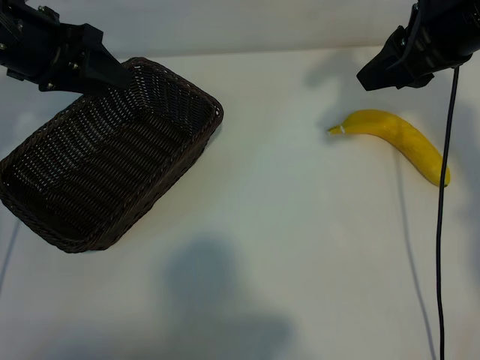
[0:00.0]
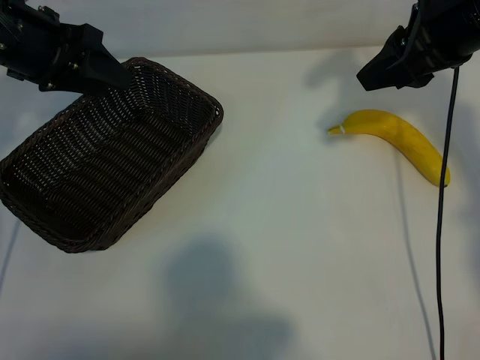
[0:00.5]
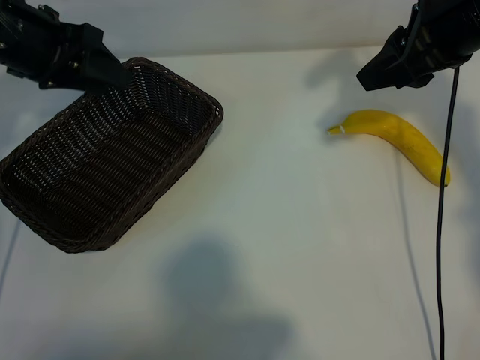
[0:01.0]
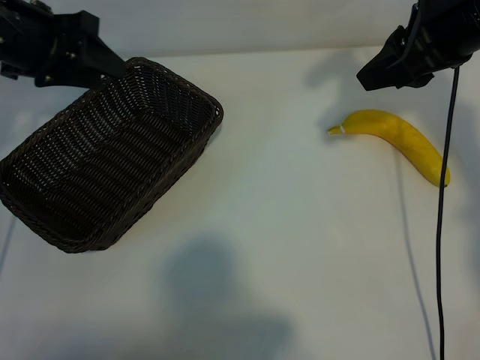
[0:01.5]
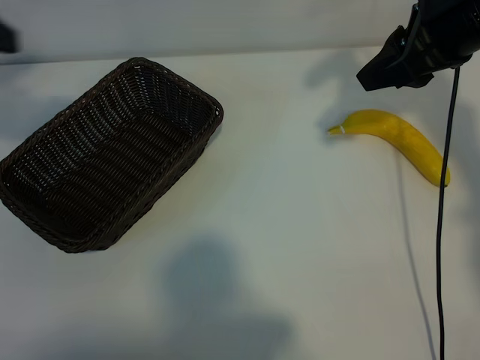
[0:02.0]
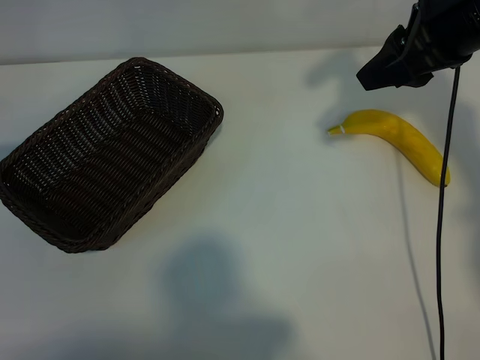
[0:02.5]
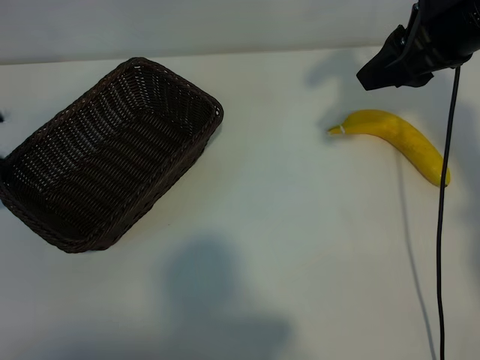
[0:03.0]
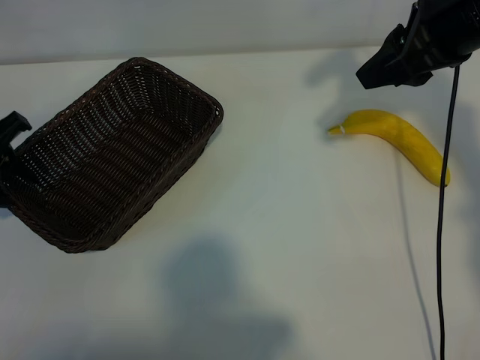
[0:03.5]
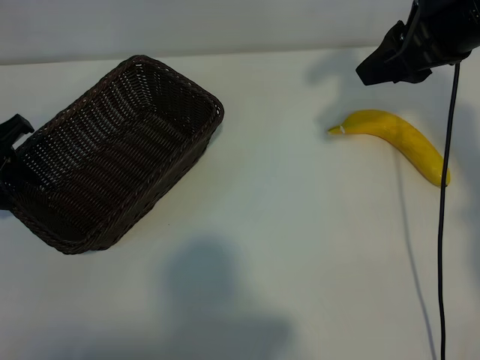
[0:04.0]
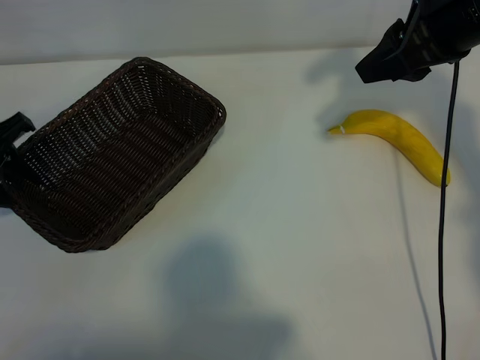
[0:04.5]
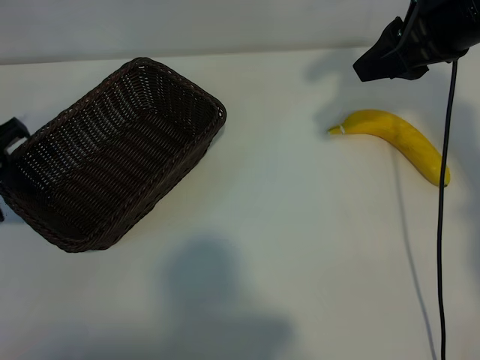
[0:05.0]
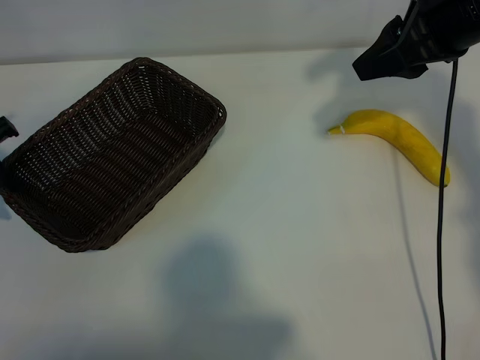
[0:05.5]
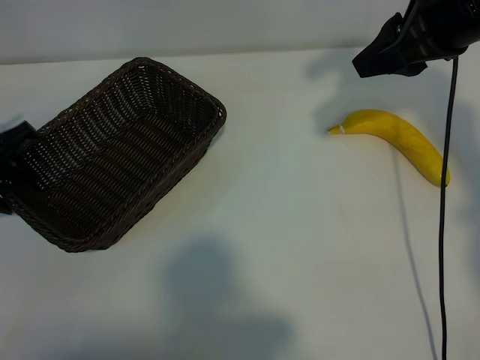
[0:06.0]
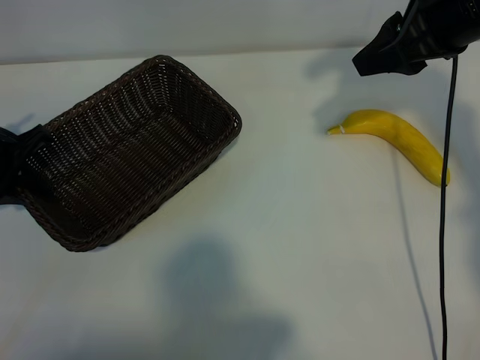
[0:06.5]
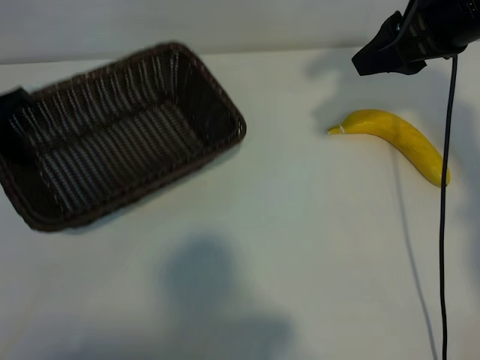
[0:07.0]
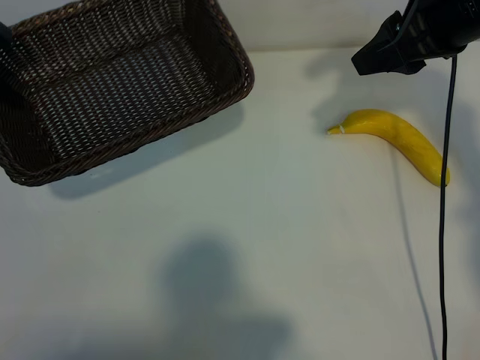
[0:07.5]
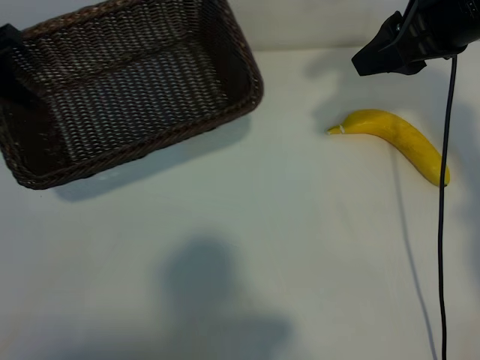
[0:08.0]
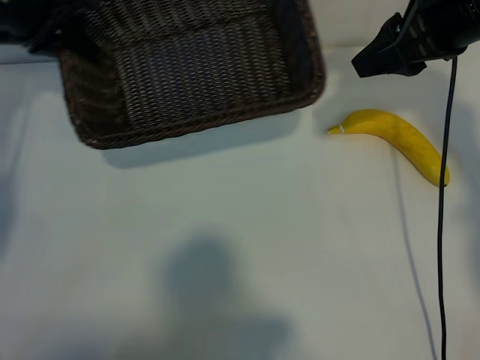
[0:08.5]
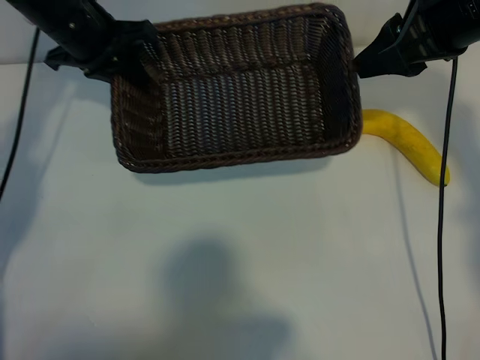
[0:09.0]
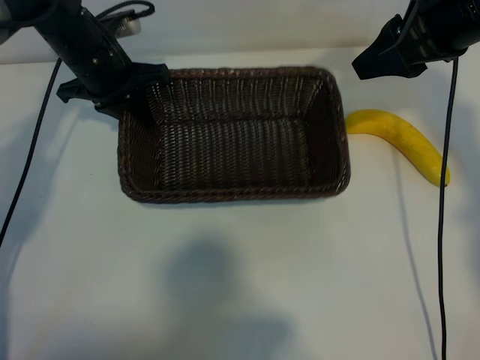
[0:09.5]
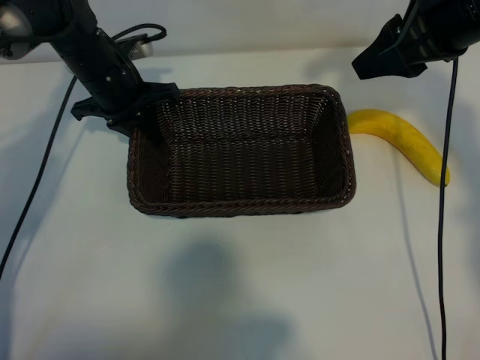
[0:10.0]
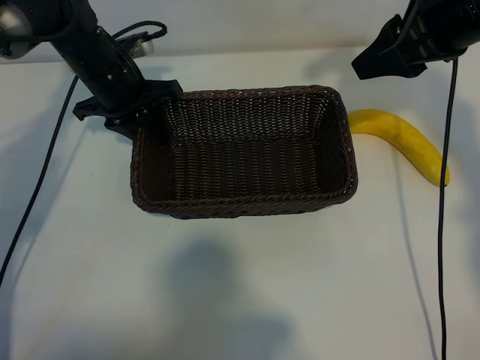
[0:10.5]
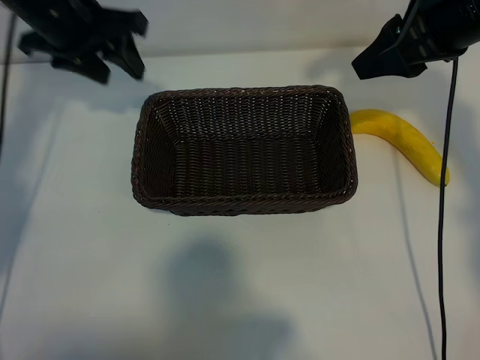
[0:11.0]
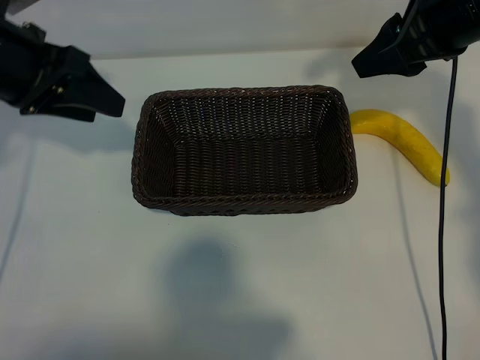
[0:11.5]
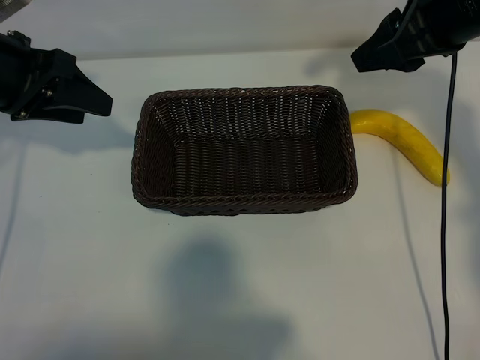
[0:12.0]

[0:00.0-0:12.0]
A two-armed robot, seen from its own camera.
Task of the whole recording: pick up the banana and put it into the basket.
Step, 0:01.0 to 0:06.0: Grasp the basket with the left gripper.
Step, 0:06.5 to 0:10.5: Place the basket in the center of the table with the left gripper.

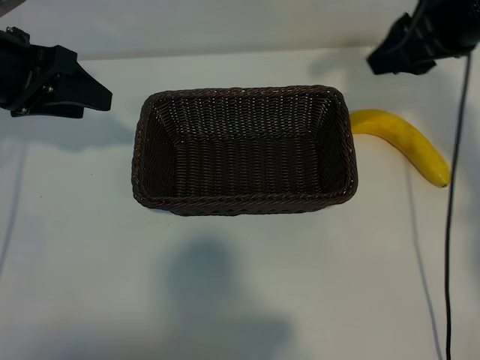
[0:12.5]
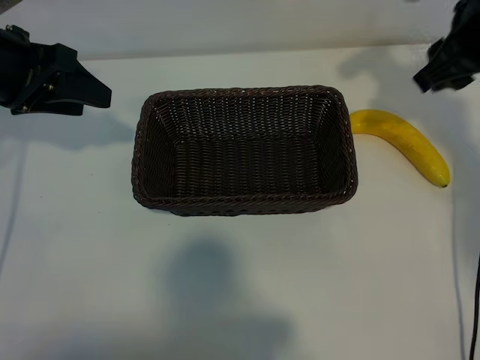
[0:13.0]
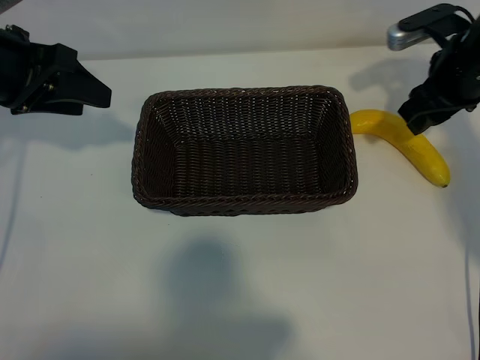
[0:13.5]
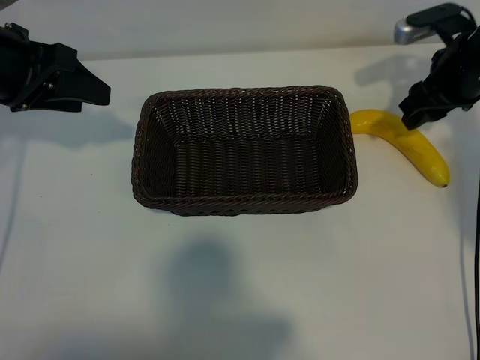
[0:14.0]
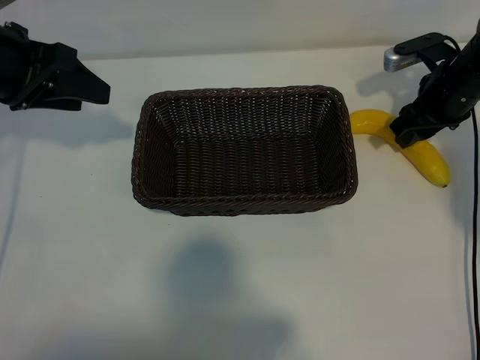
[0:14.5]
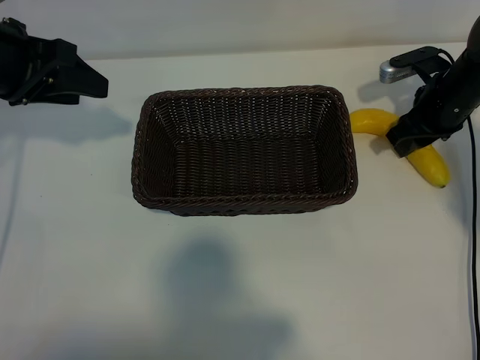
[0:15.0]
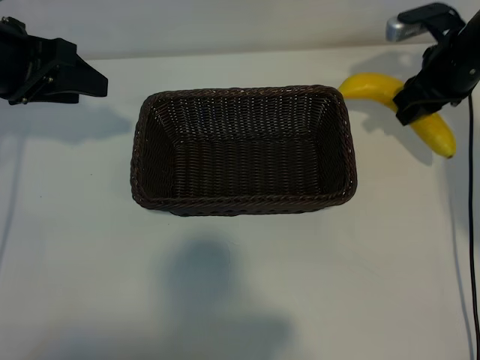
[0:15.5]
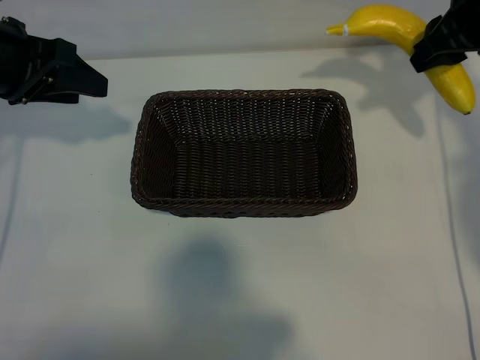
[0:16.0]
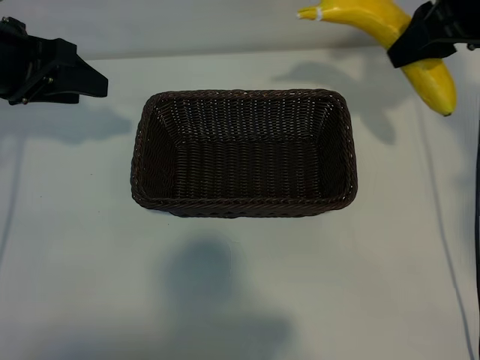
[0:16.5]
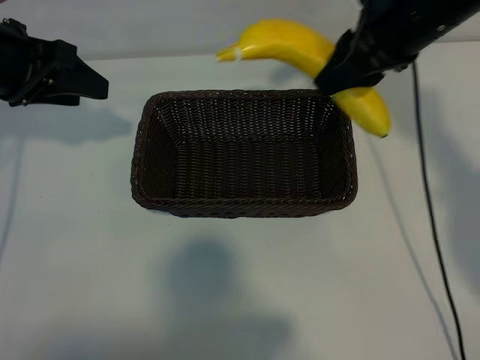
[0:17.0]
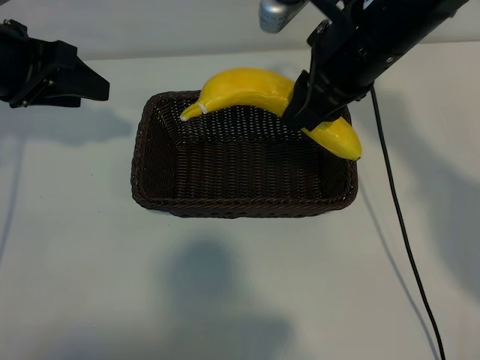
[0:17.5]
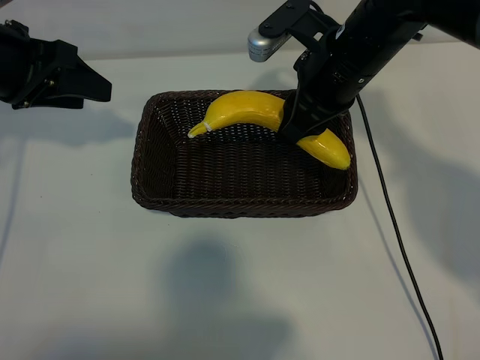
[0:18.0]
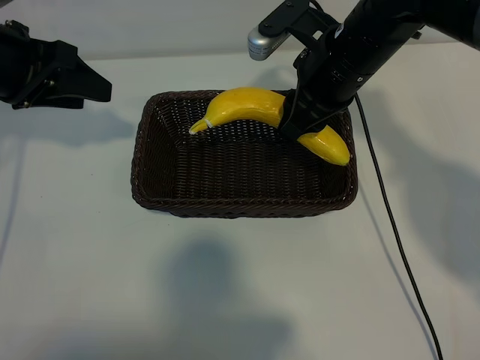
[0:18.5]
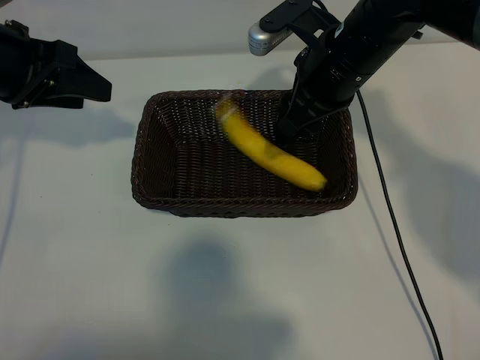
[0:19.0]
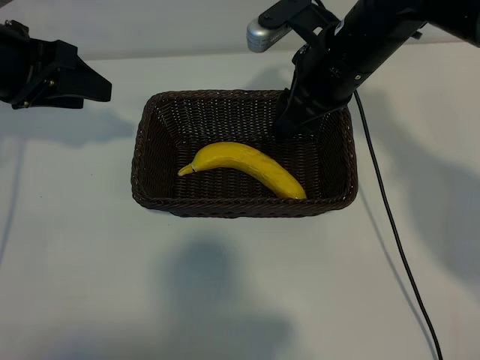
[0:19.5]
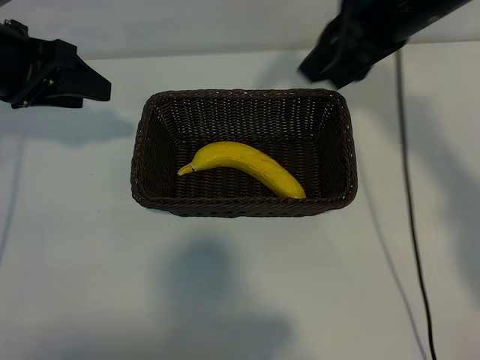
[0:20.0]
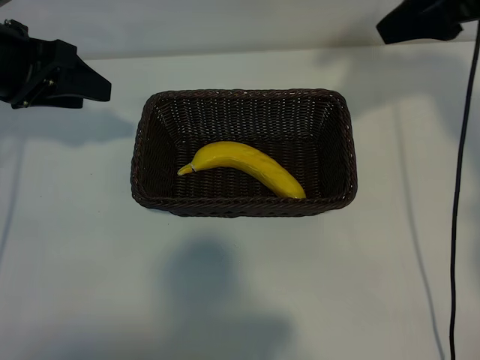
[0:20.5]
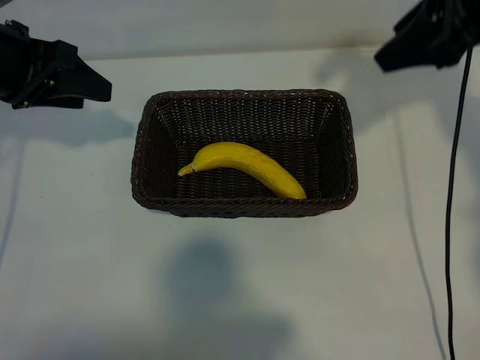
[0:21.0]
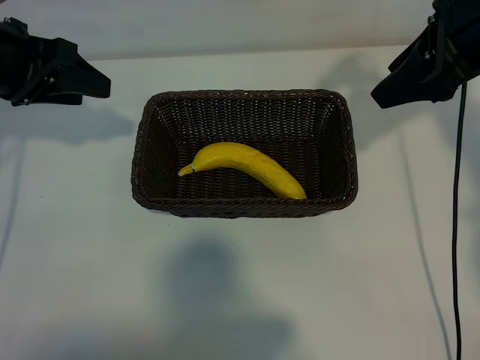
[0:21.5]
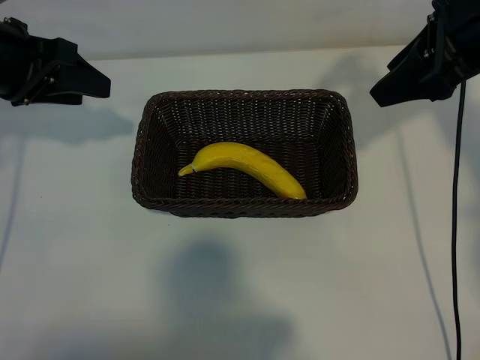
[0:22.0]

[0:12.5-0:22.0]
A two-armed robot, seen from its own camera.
Task of the whole recording: pick up the banana and put it into the basket.
Step, 0:12.5 to 0:14.5: Grasp the banana with right gripper.
Step, 0:15.5 to 0:19.0: Place the banana in the basket with right gripper.
